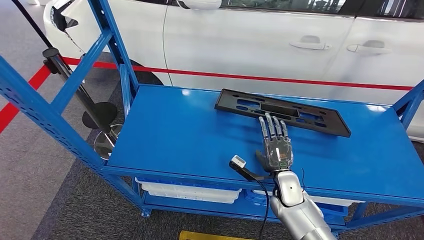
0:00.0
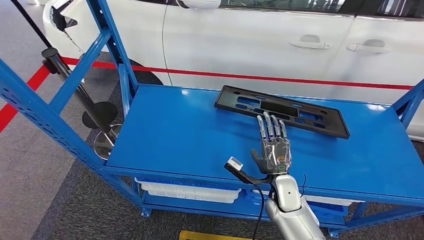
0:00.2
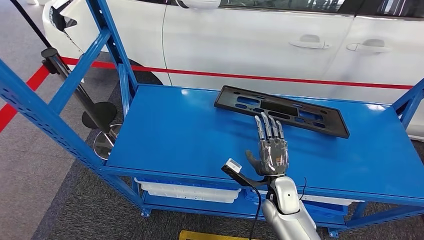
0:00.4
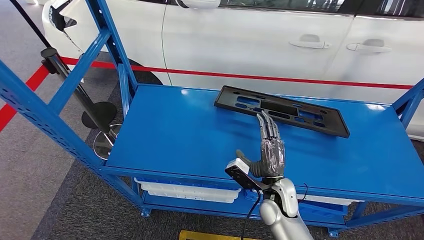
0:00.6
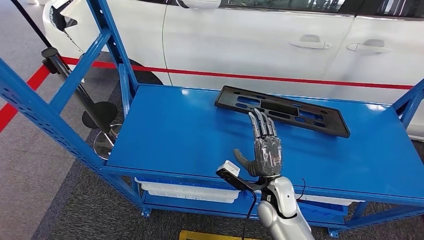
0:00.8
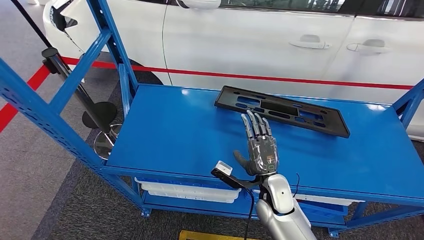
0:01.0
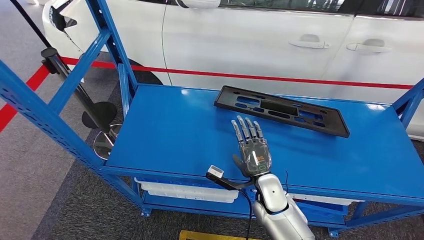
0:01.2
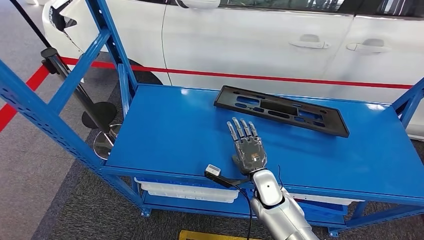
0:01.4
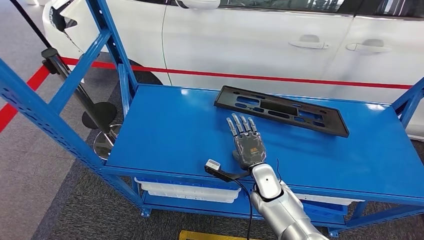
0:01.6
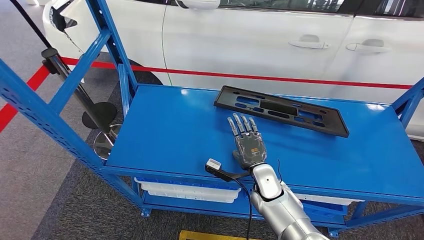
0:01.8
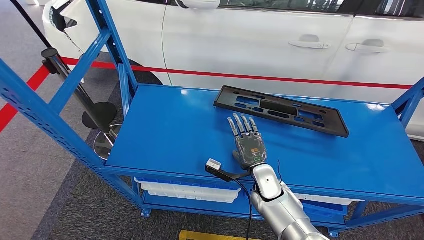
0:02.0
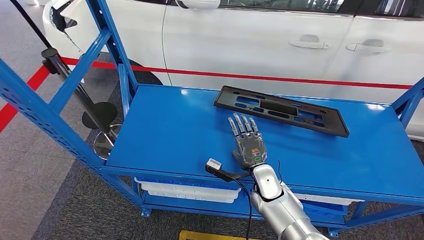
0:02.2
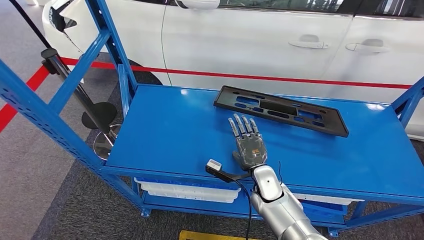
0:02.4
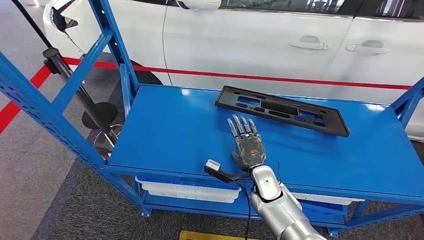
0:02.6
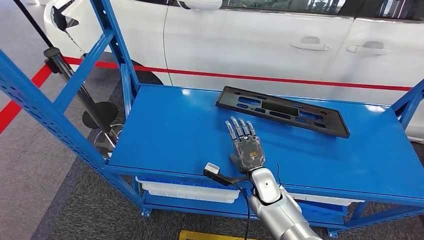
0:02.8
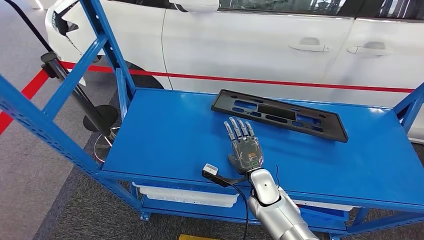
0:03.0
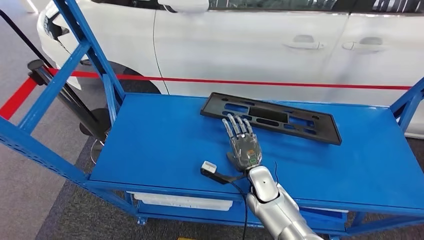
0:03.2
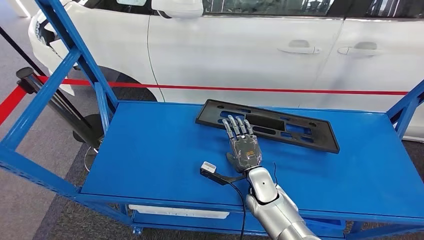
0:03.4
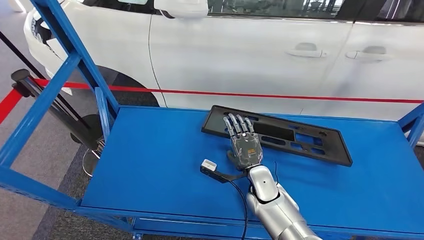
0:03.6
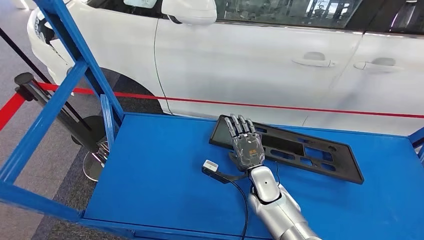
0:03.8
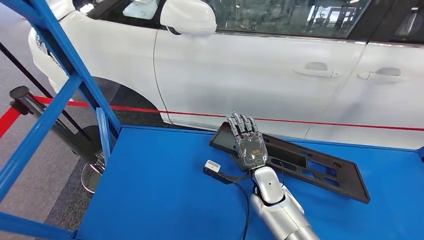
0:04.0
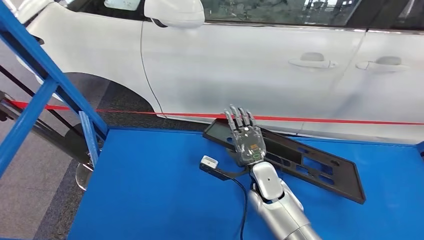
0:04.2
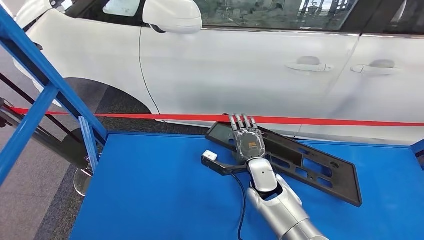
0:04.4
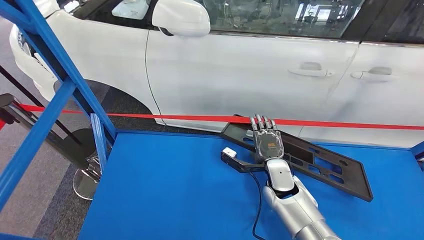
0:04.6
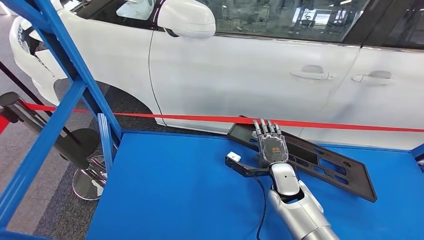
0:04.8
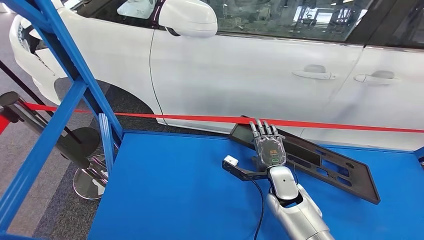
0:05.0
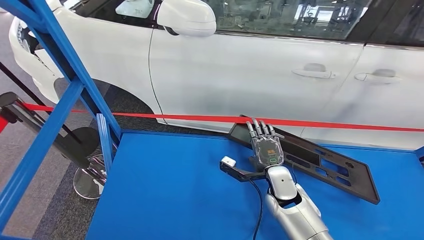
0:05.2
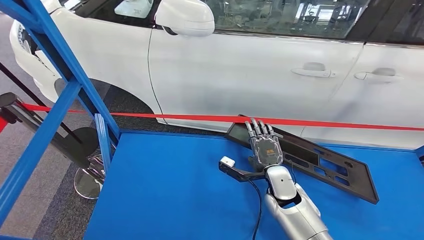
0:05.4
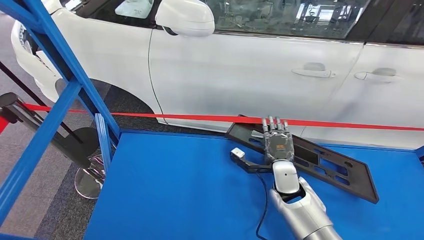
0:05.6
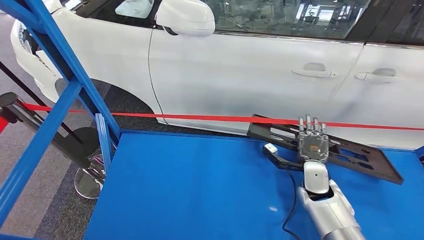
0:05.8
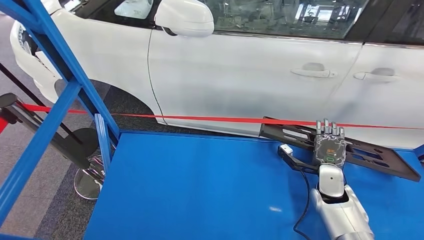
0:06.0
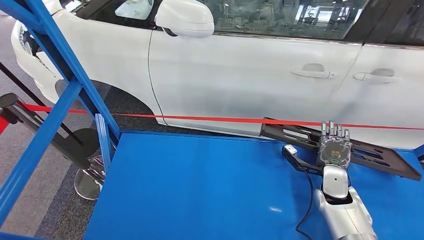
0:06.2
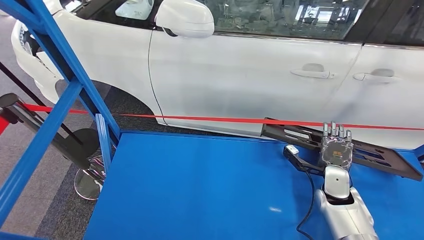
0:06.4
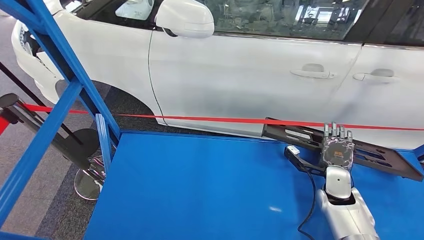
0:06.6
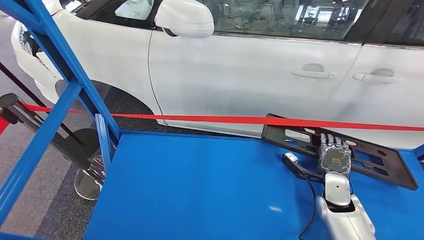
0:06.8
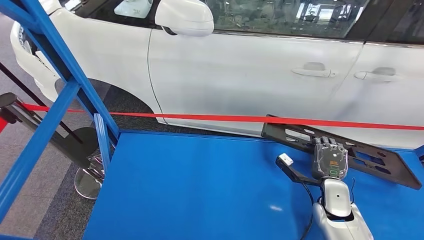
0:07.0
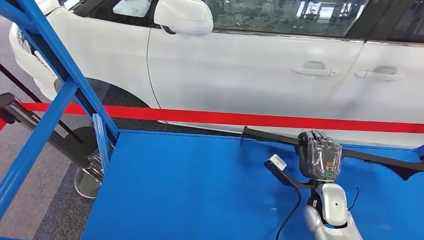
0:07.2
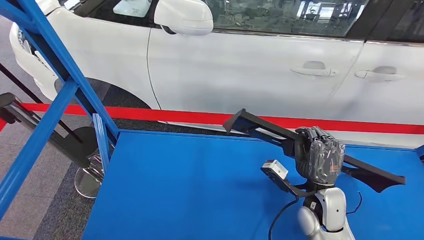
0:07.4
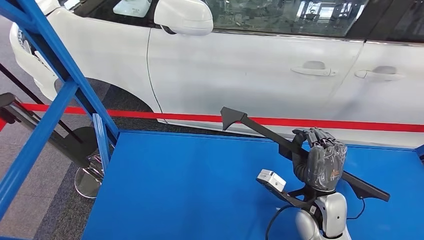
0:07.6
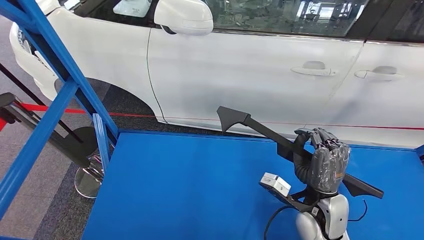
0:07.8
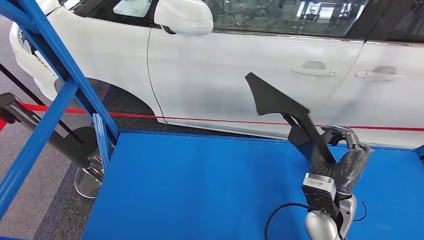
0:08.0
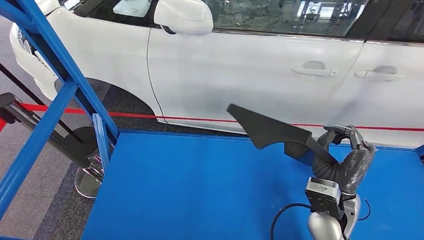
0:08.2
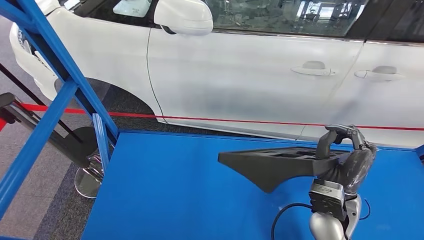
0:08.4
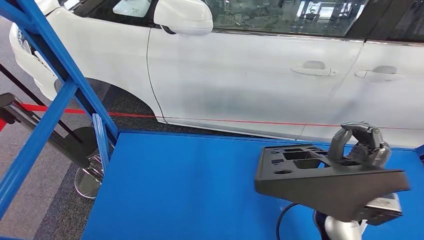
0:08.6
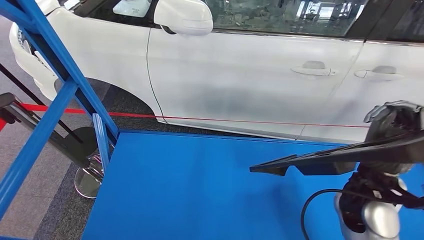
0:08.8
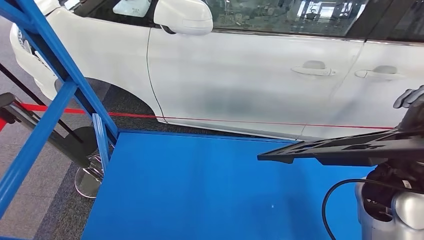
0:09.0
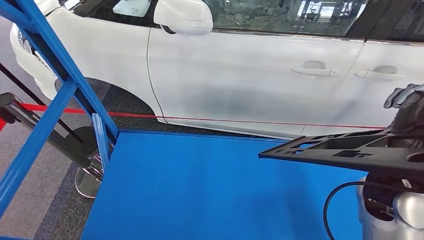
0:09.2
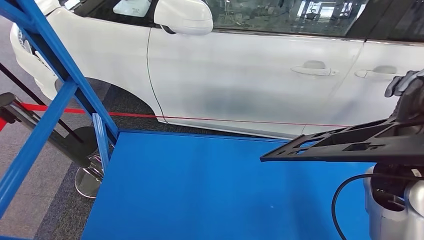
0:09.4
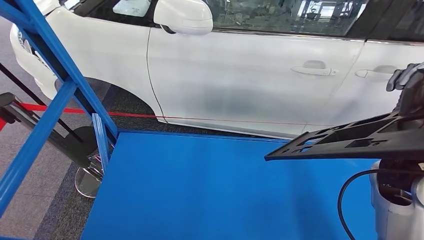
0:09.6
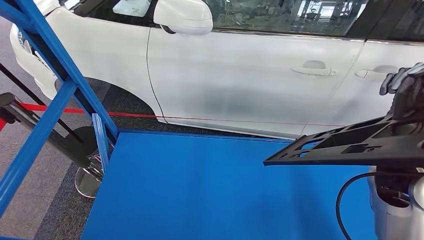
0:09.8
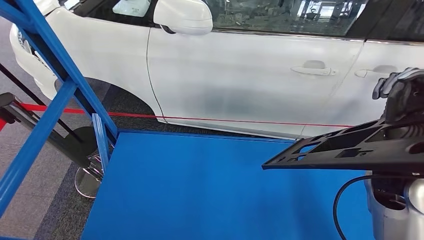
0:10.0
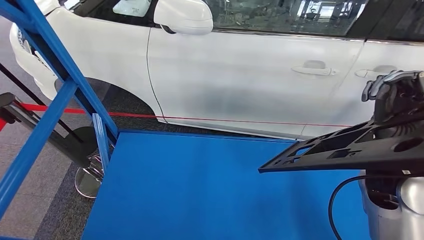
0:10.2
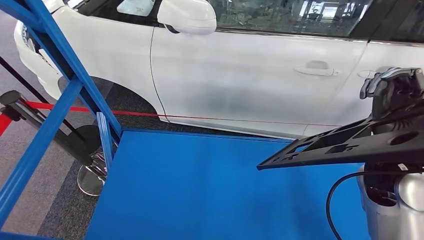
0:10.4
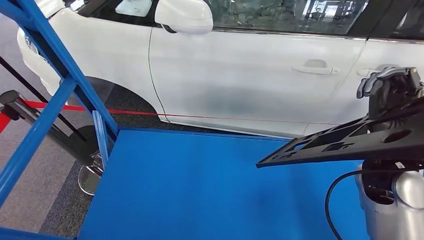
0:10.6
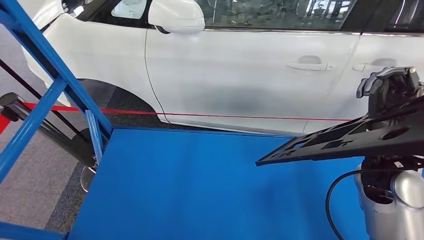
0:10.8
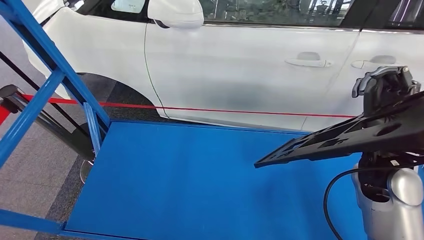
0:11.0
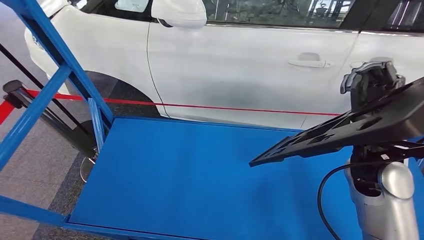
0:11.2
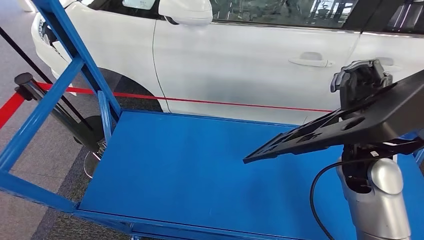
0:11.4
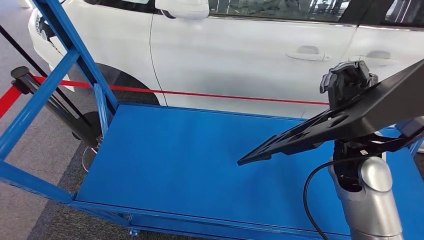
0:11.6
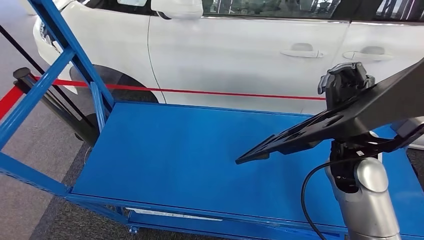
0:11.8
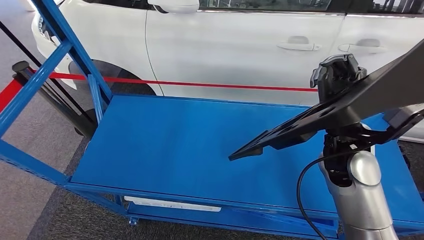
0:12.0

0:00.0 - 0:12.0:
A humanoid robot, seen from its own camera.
Step, 0:00.0 - 0:09.0: Pick up the large material from the shelf.
0:00.0 - 0:01.6: The right hand is displaced to the left by approximately 5 cm.
0:06.0 - 0:07.6: The right hand is displaced to the left, backward and upward by roughly 15 cm.
0:07.6 - 0:09.0: The right hand travels upward and to the right by some 15 cm.

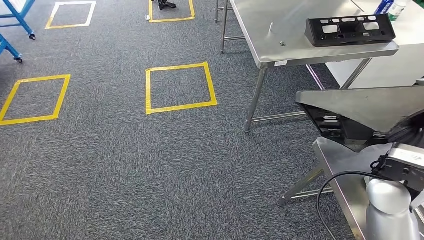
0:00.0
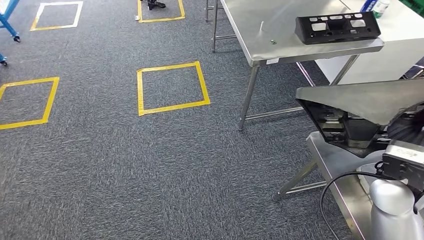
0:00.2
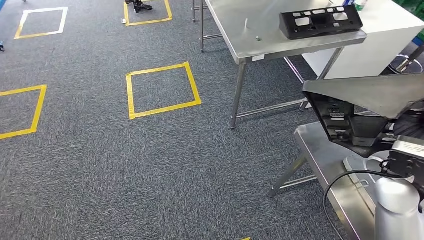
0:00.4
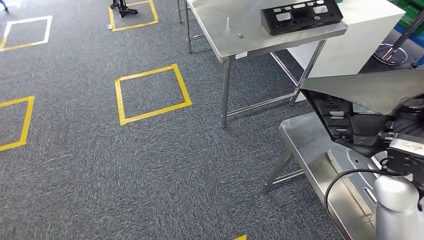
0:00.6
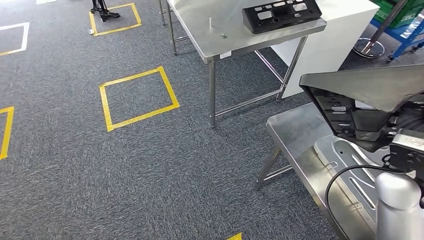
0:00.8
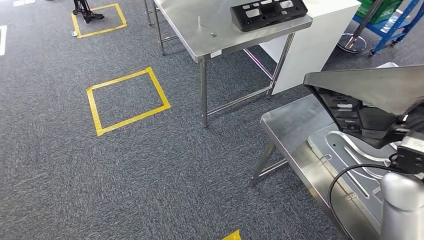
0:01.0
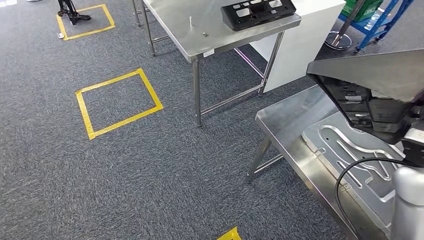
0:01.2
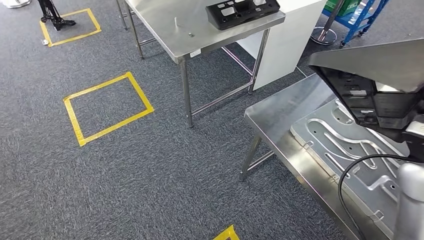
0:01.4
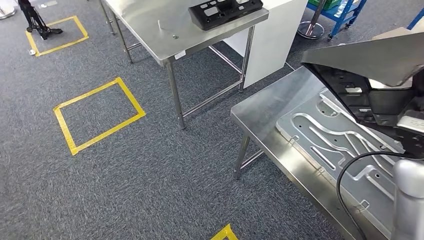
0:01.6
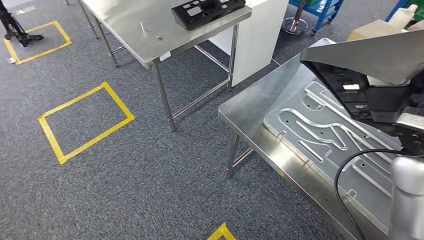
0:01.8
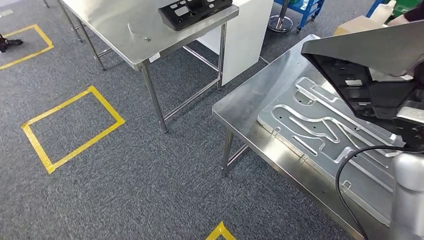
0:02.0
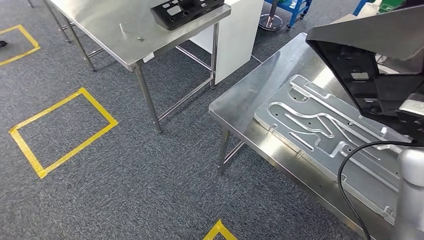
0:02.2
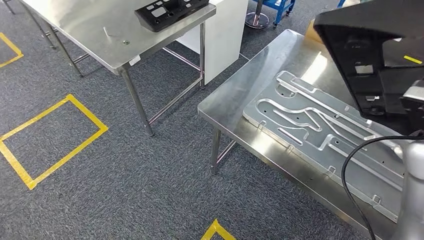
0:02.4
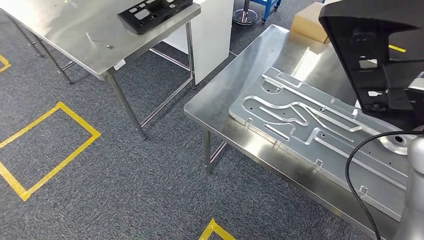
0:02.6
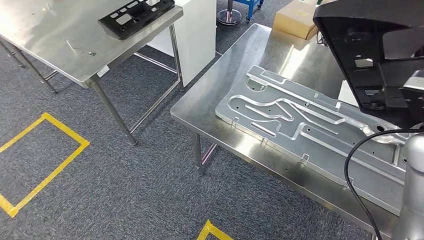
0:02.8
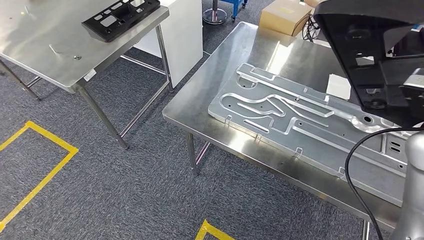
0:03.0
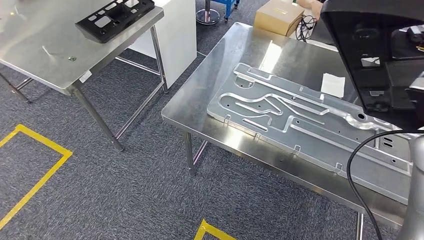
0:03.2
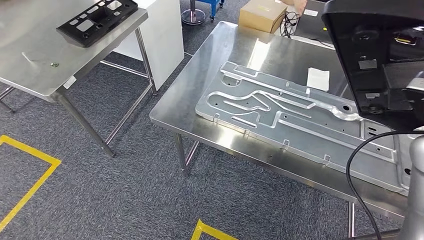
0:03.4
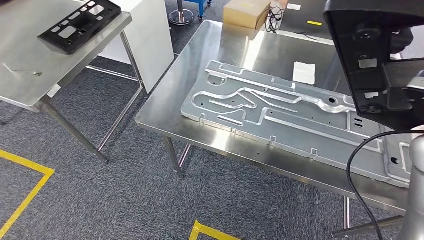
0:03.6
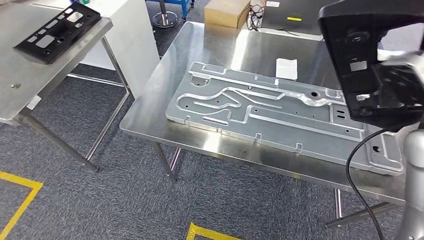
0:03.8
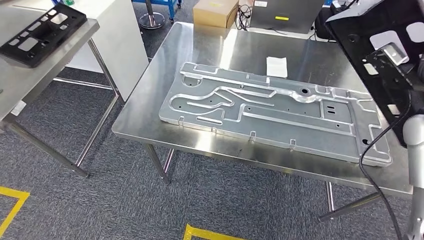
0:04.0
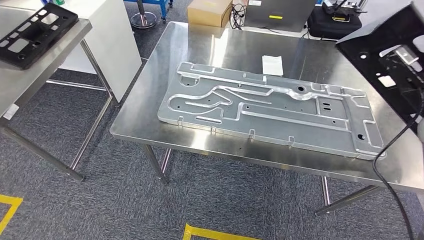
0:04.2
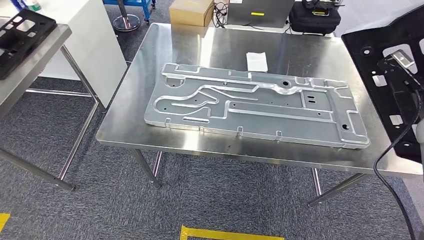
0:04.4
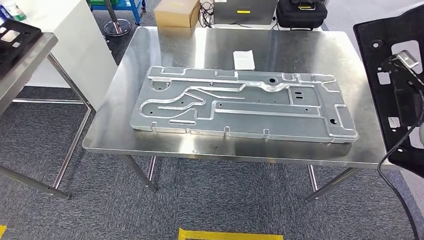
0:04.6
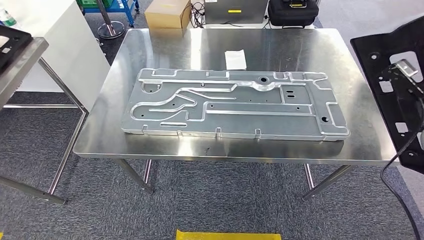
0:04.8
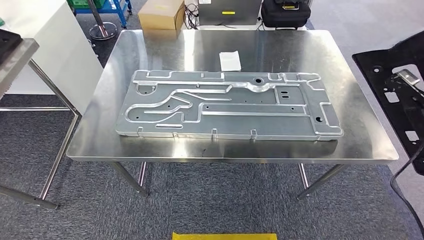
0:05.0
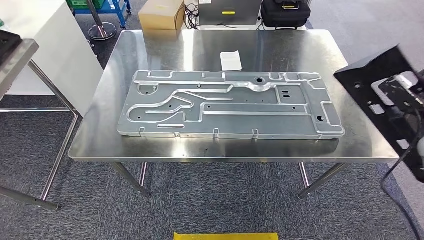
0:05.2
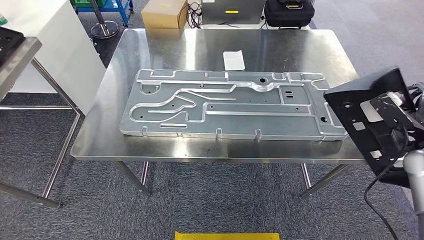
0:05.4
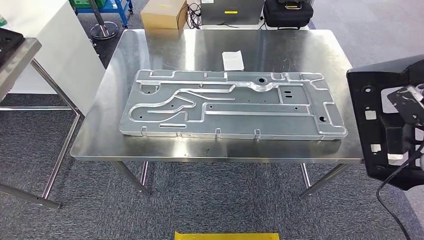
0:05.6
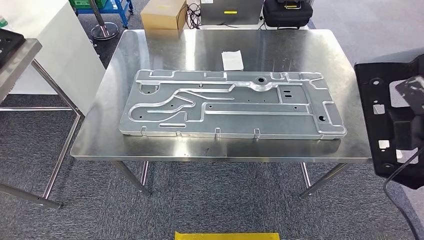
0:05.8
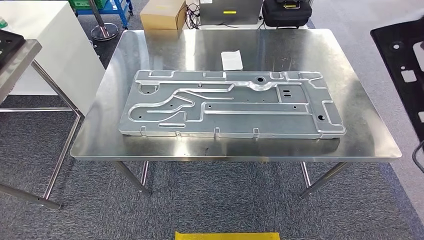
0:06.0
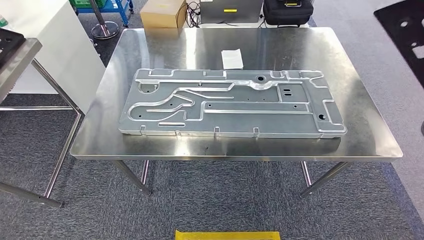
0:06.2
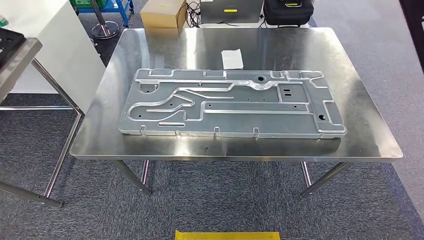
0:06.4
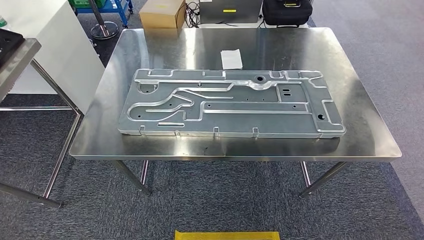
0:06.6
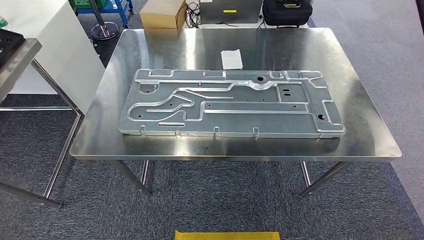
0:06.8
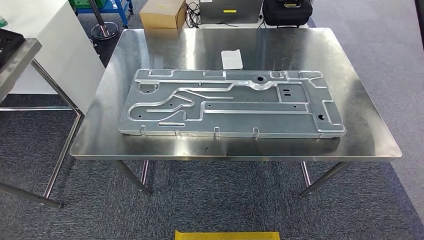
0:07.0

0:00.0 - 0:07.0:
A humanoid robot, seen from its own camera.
Step, 0:00.0 - 0:04.8: Move the large material to the front of the workbench.
